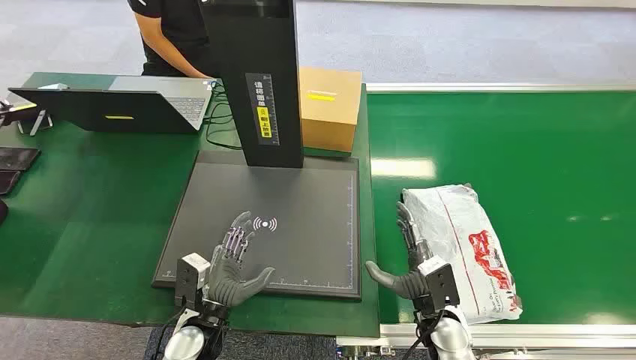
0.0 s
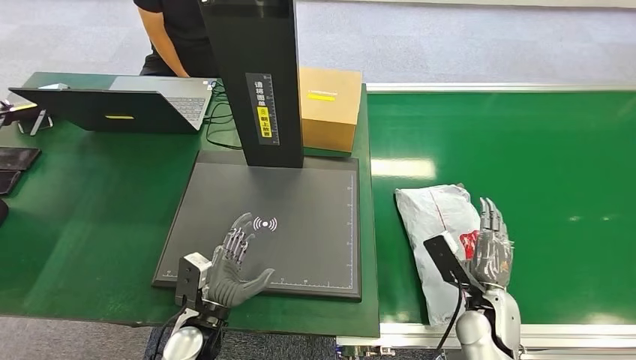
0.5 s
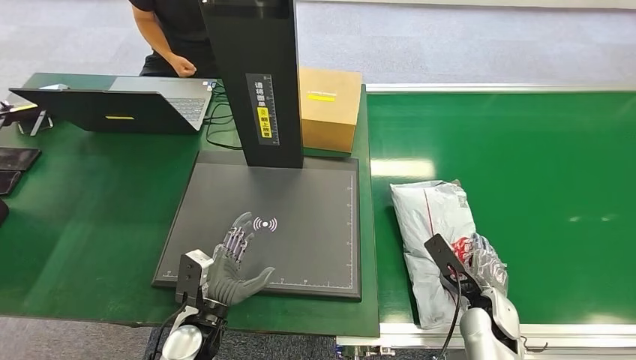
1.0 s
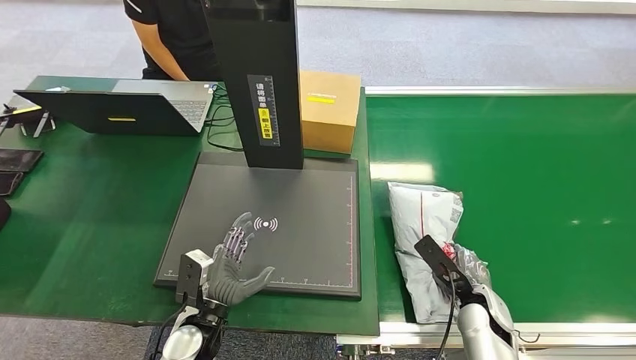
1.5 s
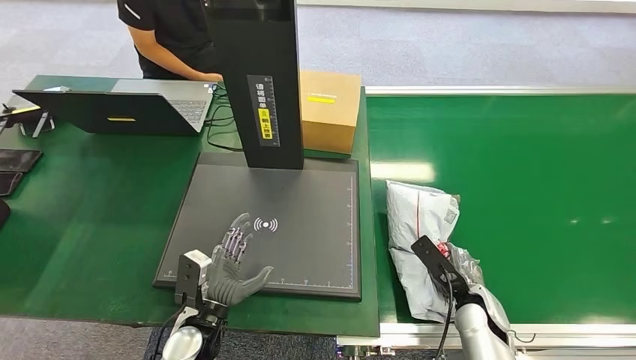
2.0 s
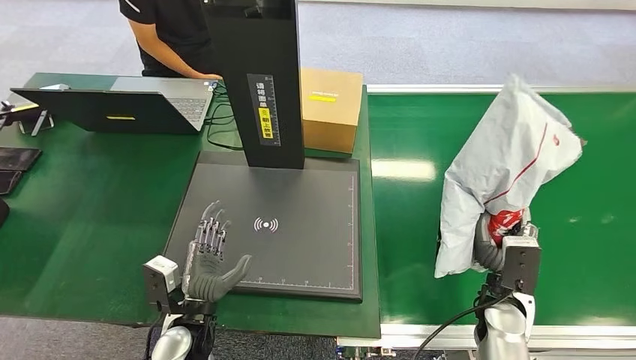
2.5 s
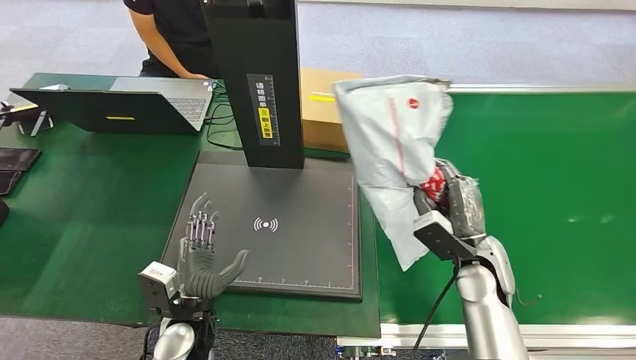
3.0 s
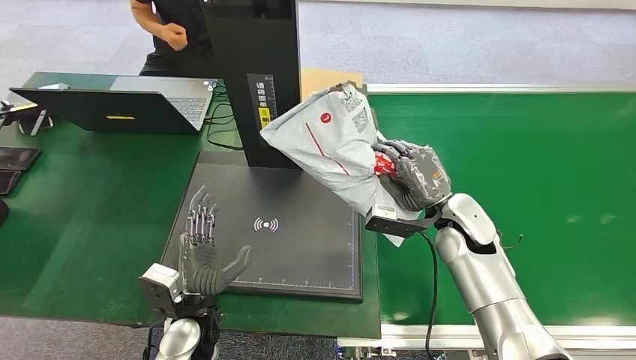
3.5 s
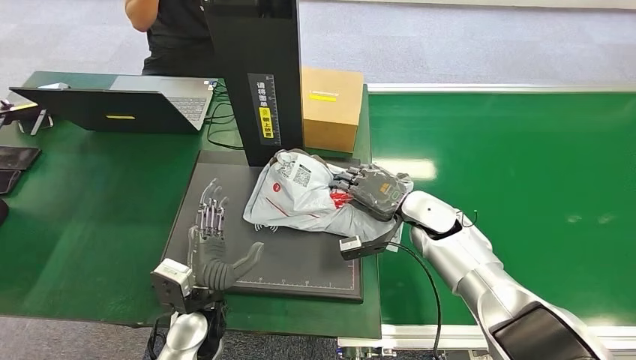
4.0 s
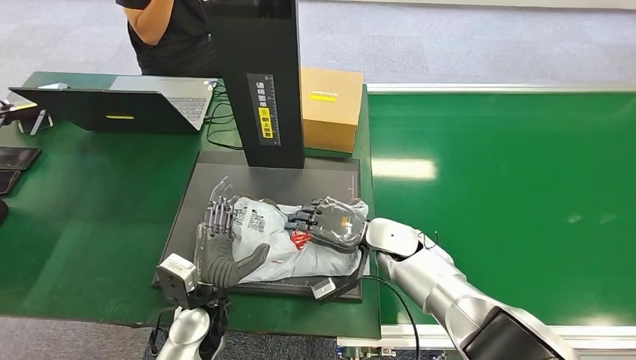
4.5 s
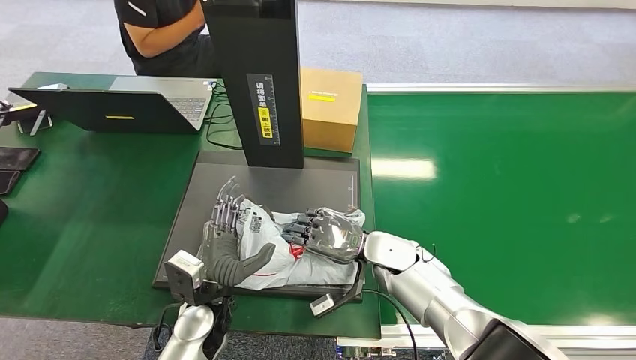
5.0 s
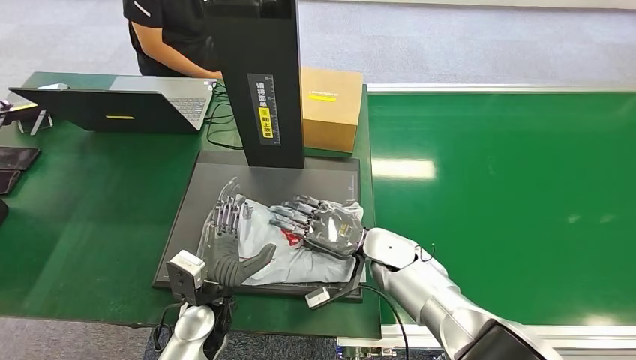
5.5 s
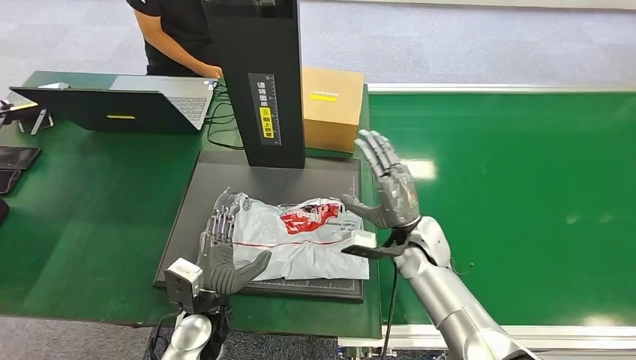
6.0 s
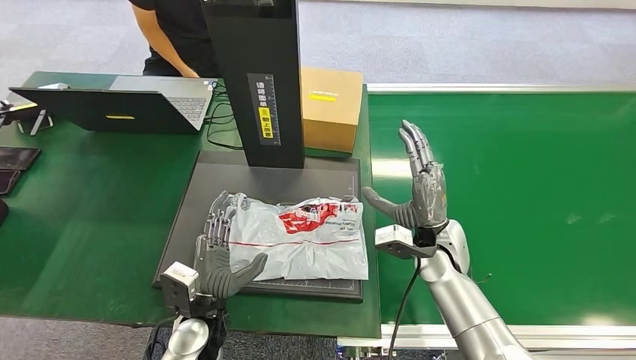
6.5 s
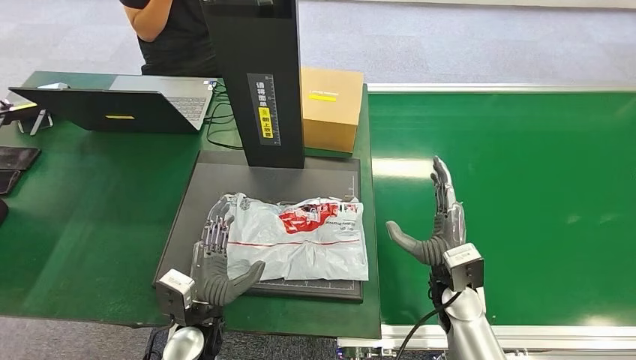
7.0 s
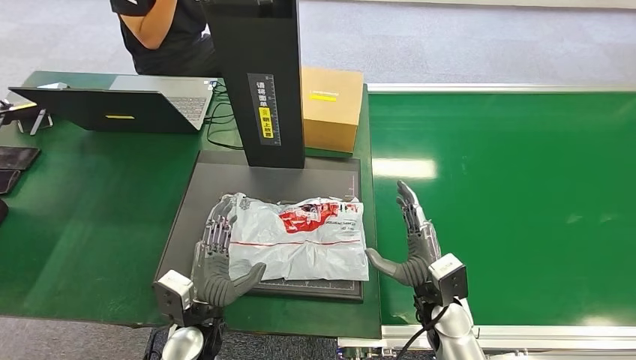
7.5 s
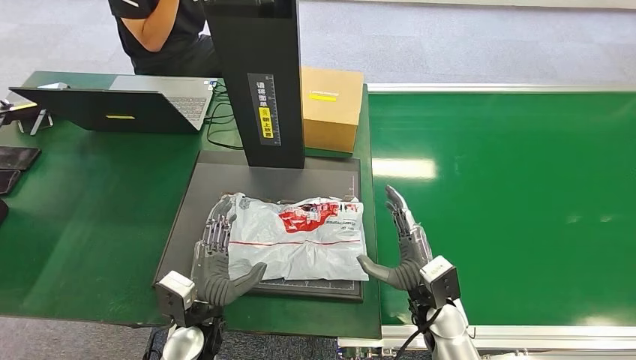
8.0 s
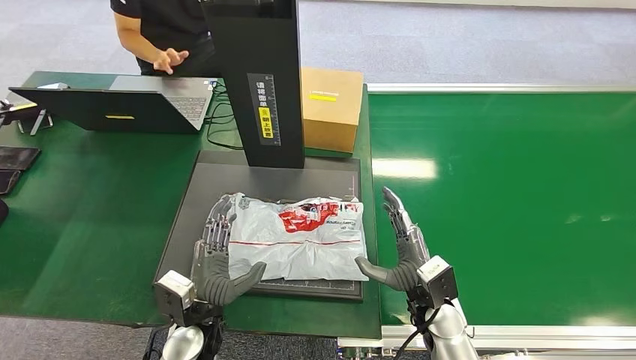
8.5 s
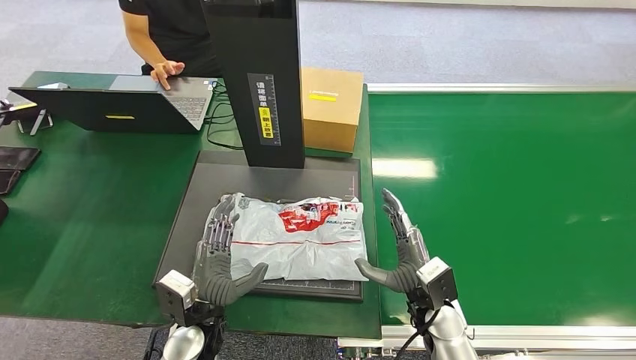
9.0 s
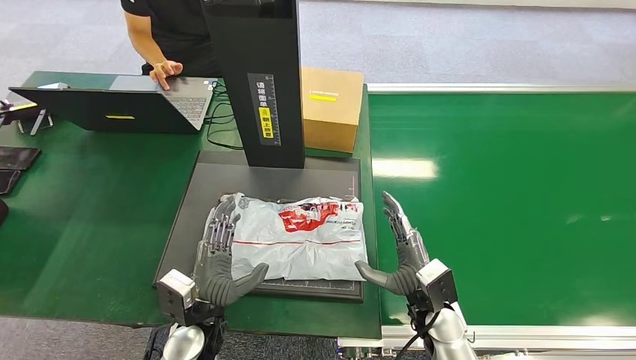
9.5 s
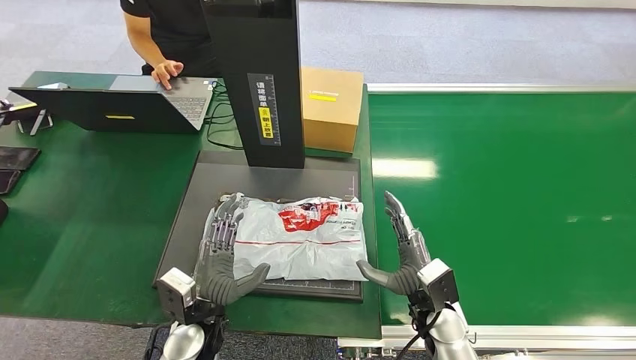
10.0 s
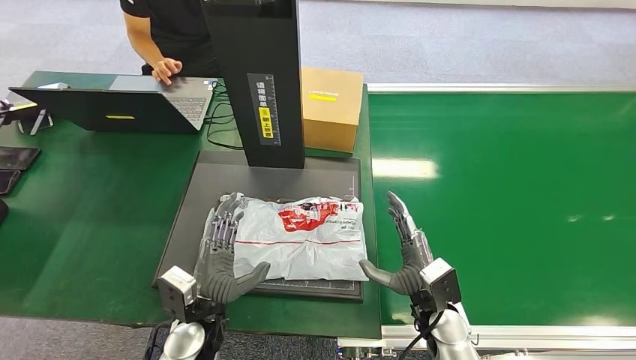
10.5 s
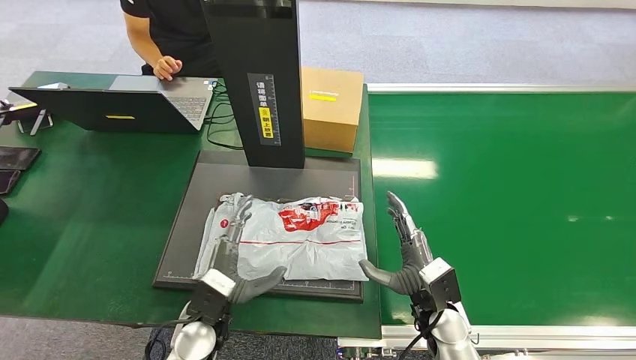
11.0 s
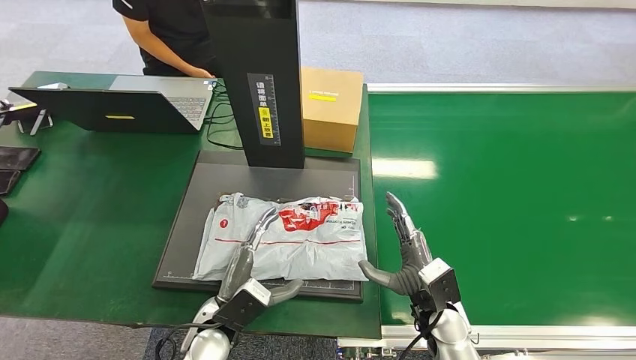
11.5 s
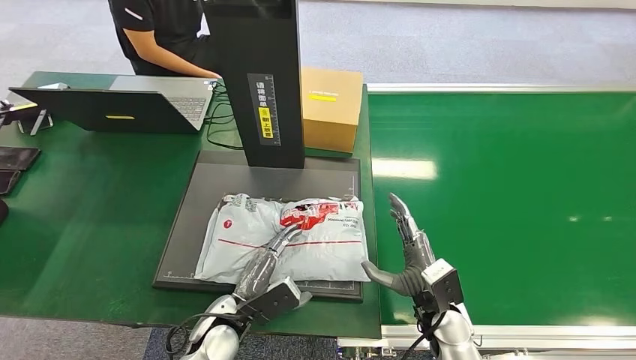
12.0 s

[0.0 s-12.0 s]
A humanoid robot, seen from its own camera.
Task of the whole recording: Weigh the package on the weighing device and place it in the left basket.
Step, 0.0 to 2.5 s: Pick up the package from the conveyor belt.
Step, 3.0 to 6.5 s: Place the package onto the inbound machine.
6.0 to 8.0 s: The right hand travels backward and downward by approximately 10 cm.
8.0 to 10.0 s: Both hands stay about where they are.

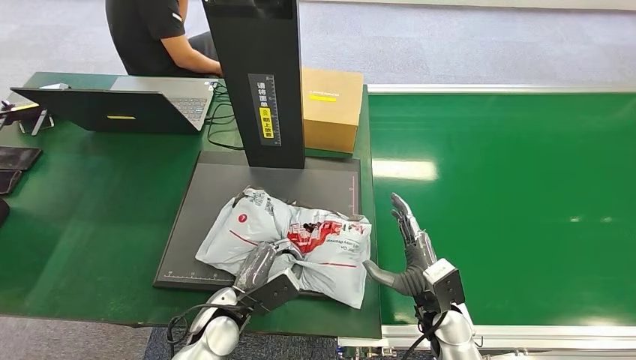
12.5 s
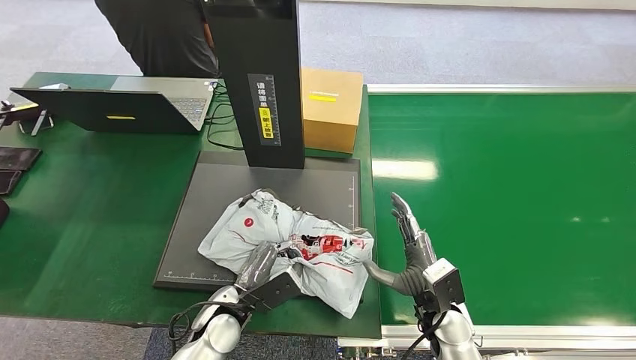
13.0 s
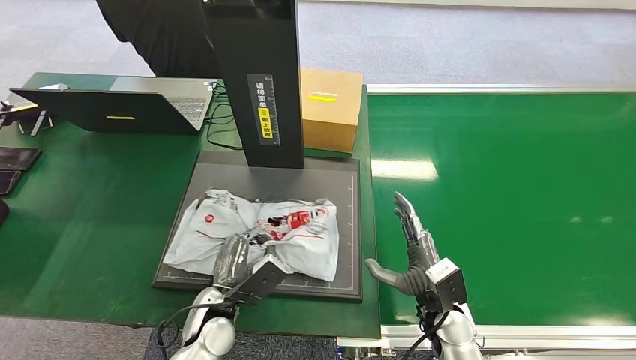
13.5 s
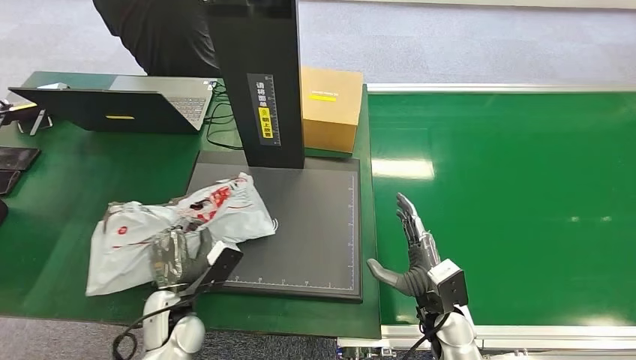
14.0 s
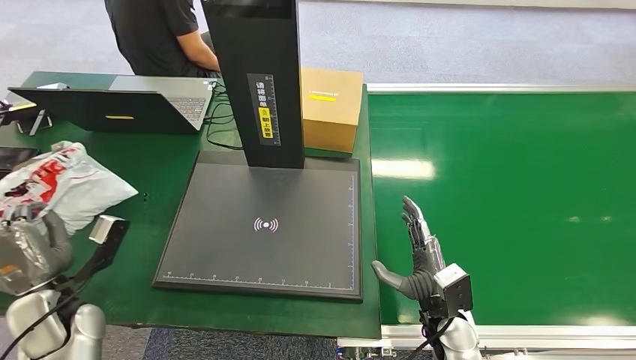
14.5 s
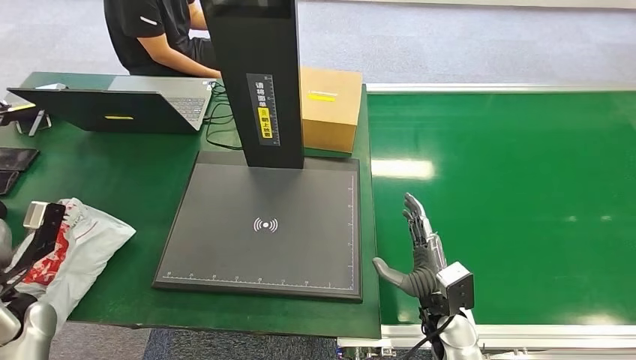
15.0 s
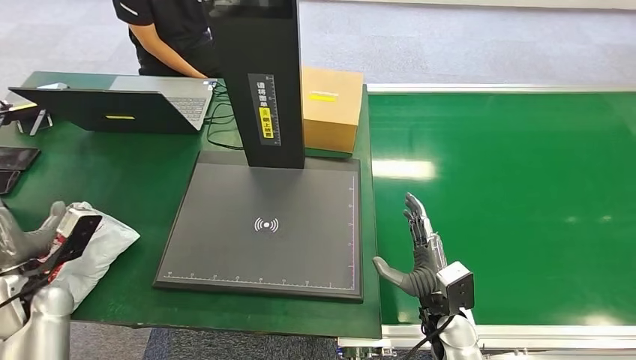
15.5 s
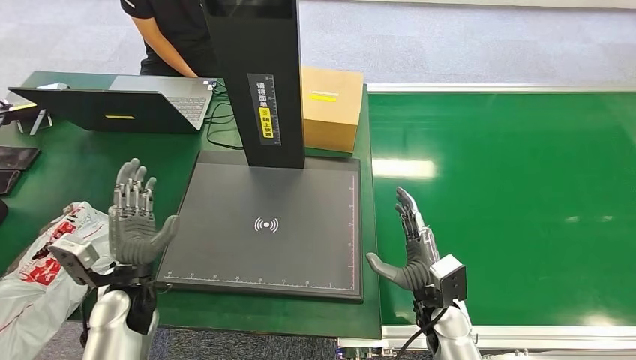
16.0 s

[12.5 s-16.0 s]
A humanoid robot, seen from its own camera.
Task of the whole recording: Weigh the package on the weighing device and place it in the left basket.
Step, 12.5 to 14.0 s: Pick up the package from the inbound machine.
Step, 14.5 to 16.0 s: Place the package into the parcel locker.
14.5 to 16.0 s: The left hand shifts about 10 cm to the right.

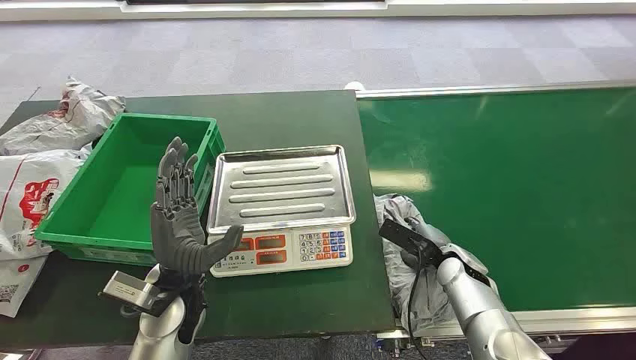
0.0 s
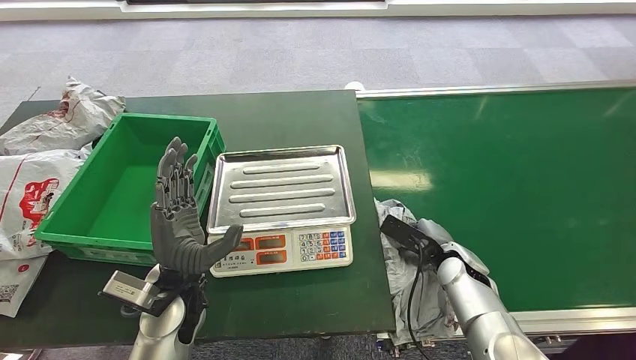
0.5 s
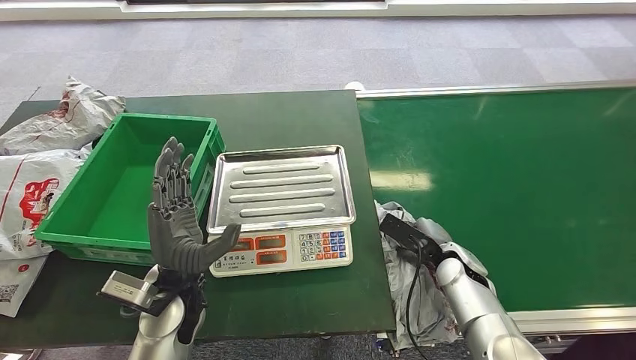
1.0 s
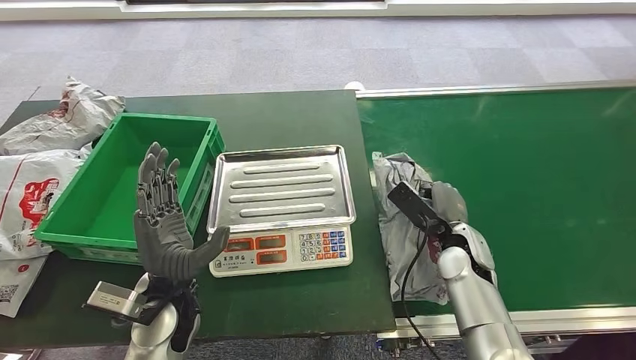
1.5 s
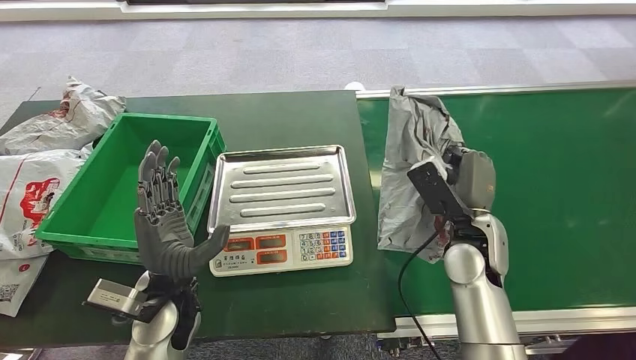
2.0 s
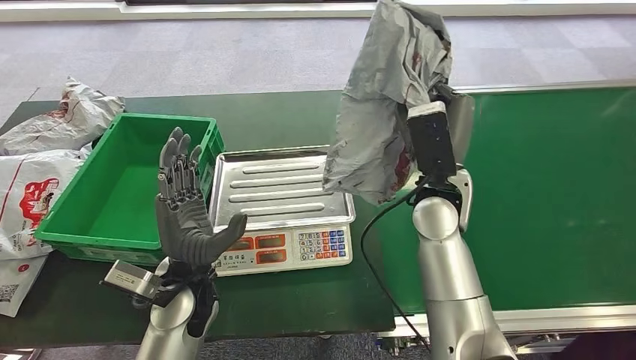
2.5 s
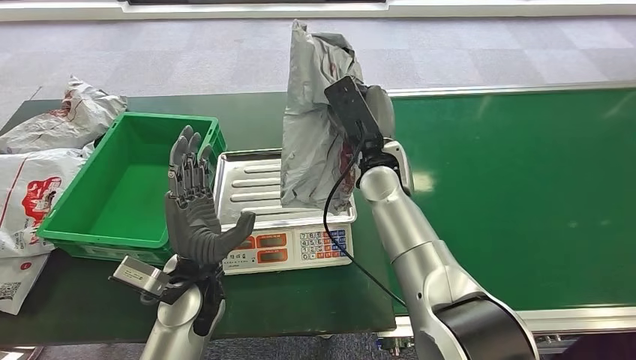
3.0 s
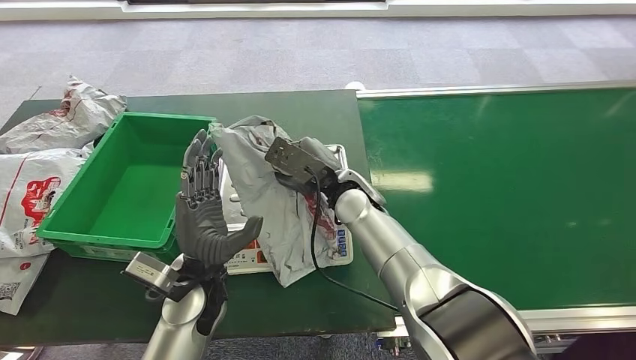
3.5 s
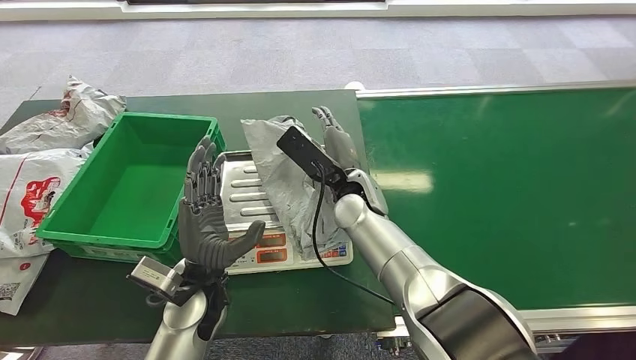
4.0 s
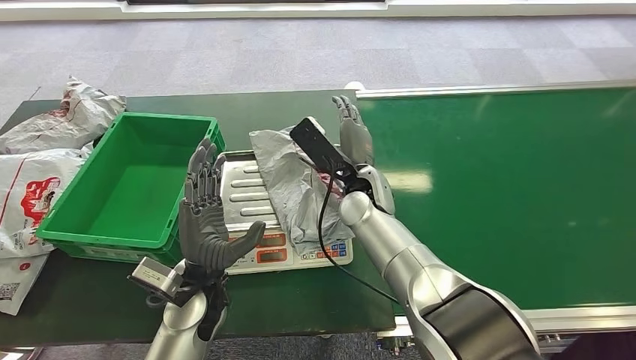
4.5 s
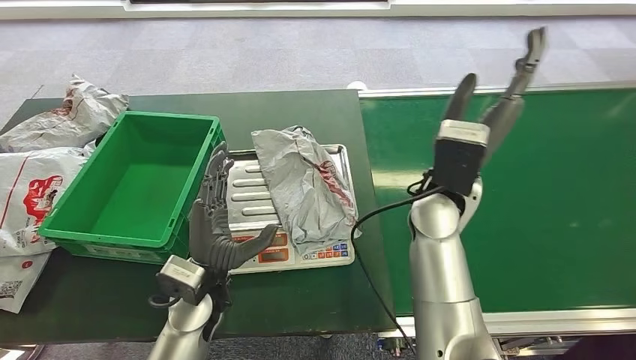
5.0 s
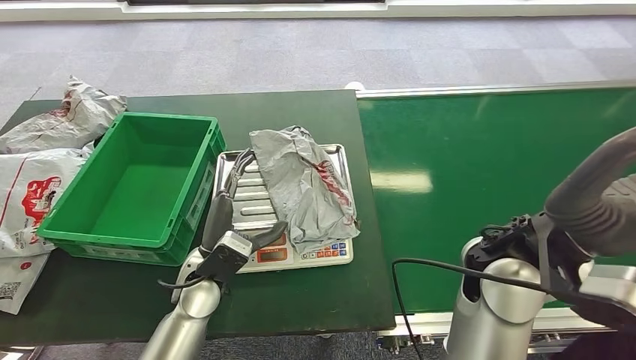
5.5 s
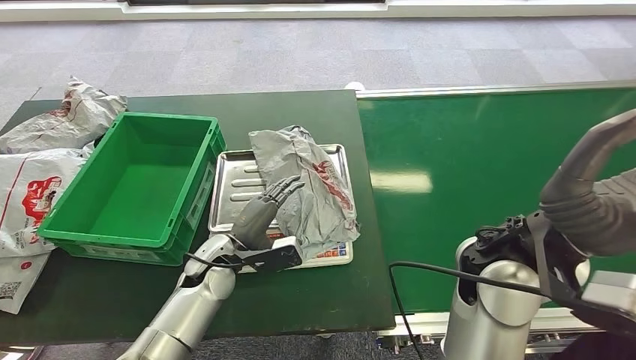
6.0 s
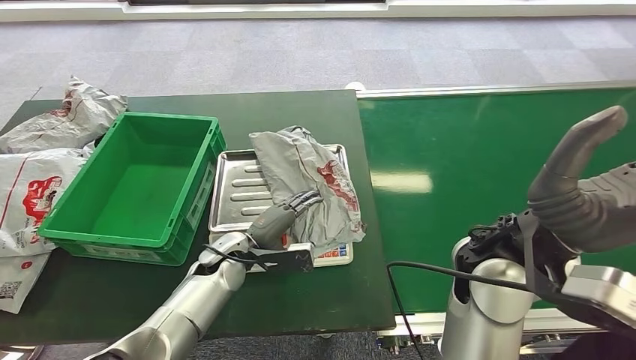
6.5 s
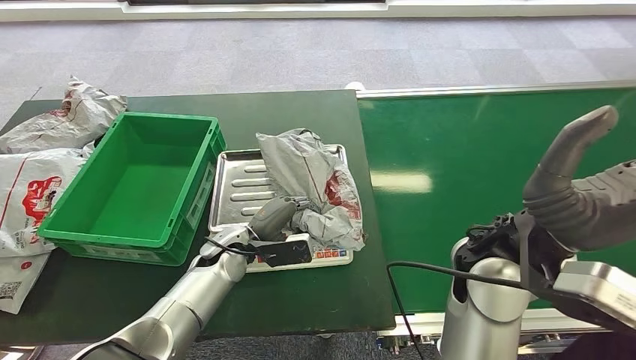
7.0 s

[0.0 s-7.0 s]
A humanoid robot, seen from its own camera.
Task of the whole recording: Weigh the package on the weighing device and place it in the left basket.
Step, 0.0 to 2.5 s: Pick up the package from the conveyor belt.
Step, 3.0 to 5.5 s: Place the package onto the inbound machine.
